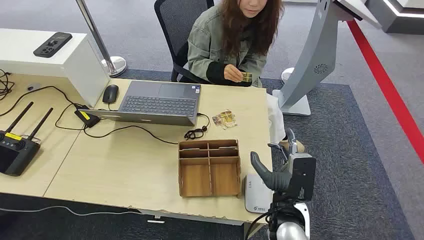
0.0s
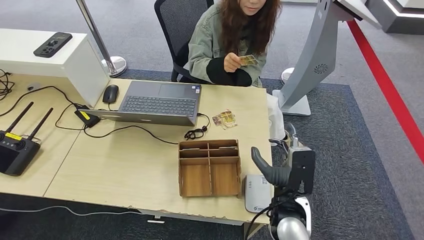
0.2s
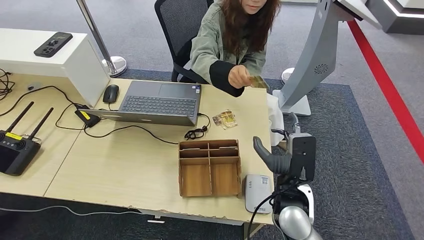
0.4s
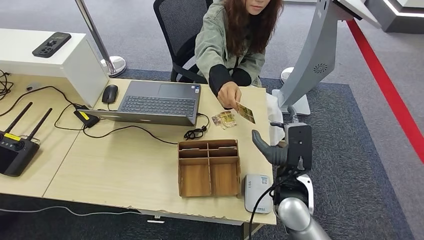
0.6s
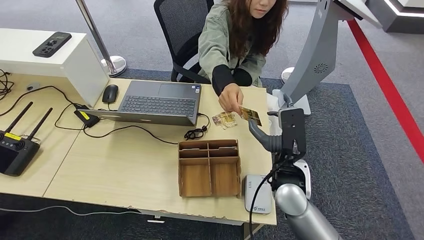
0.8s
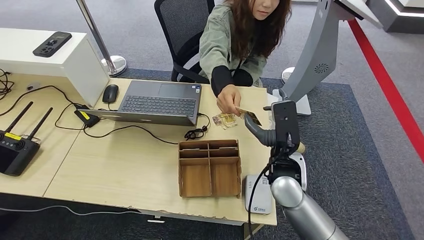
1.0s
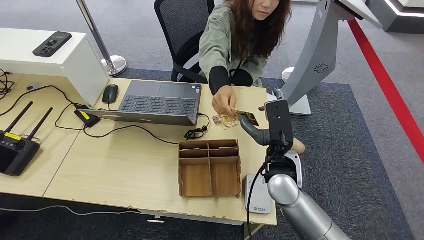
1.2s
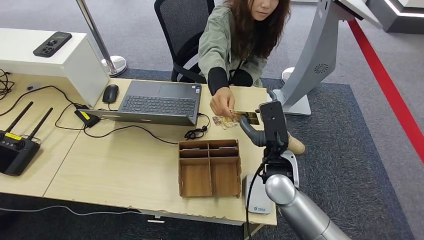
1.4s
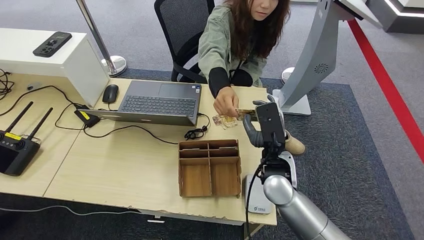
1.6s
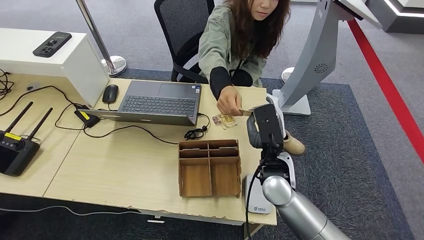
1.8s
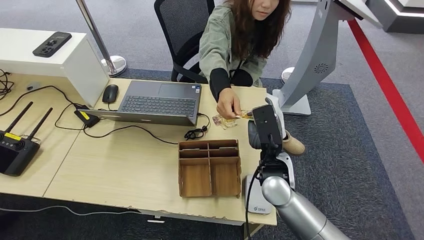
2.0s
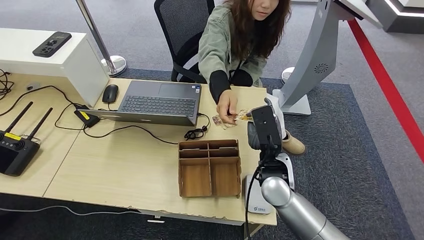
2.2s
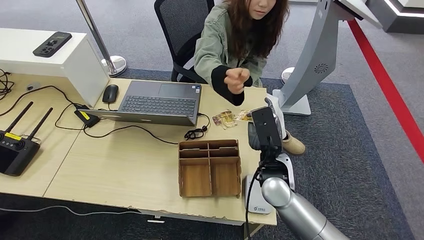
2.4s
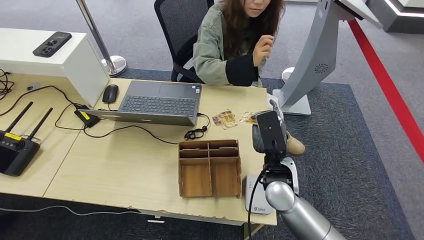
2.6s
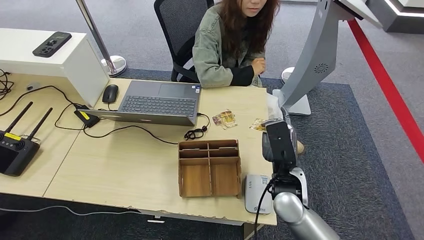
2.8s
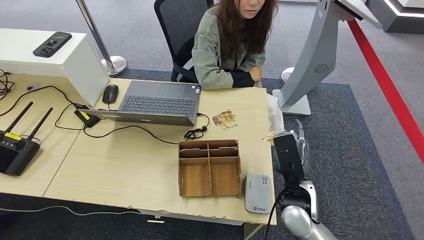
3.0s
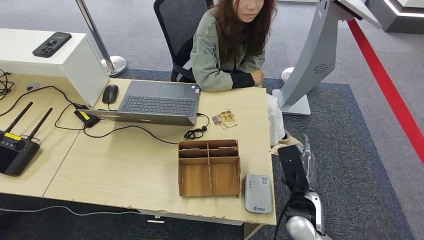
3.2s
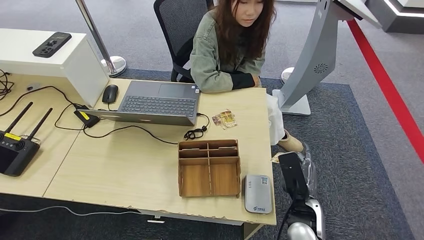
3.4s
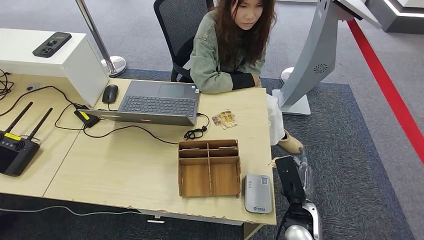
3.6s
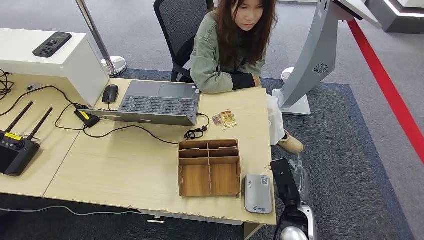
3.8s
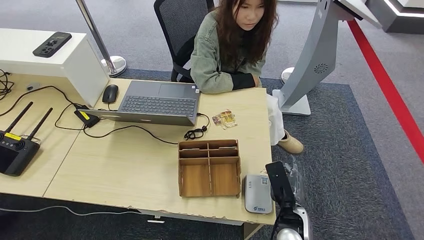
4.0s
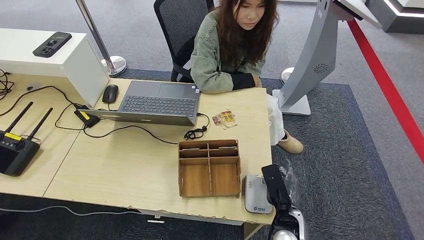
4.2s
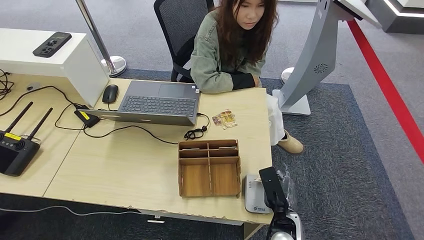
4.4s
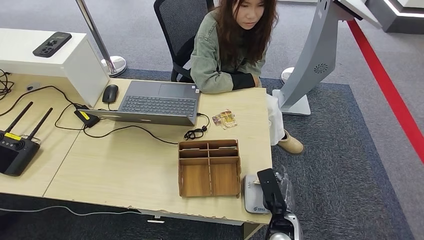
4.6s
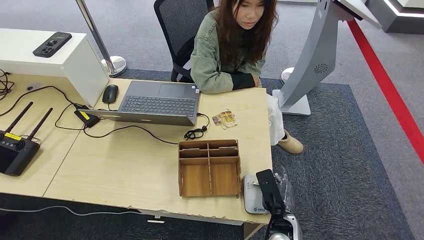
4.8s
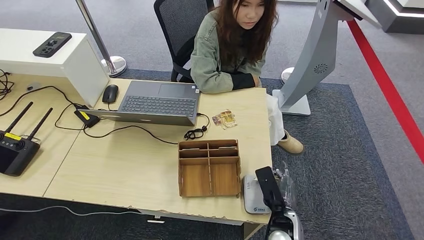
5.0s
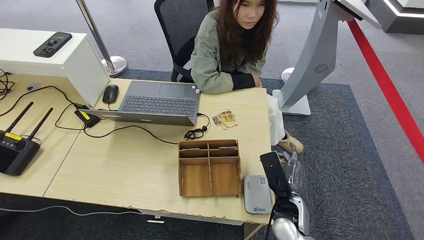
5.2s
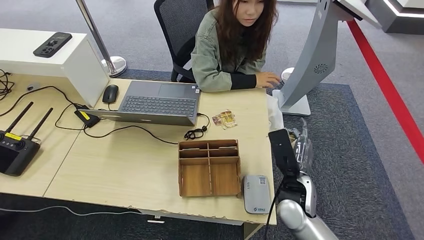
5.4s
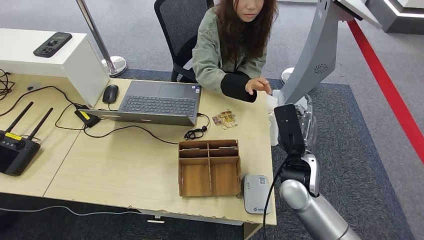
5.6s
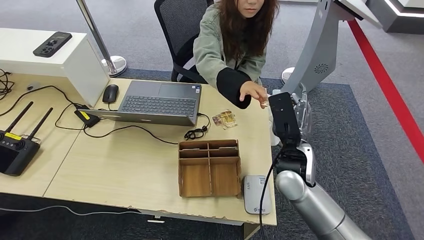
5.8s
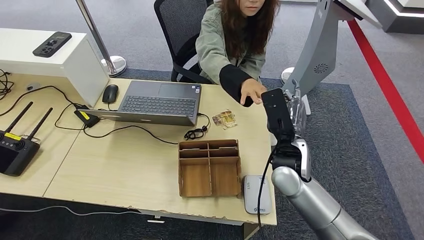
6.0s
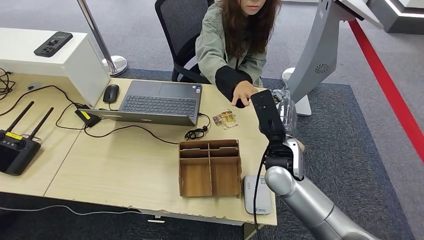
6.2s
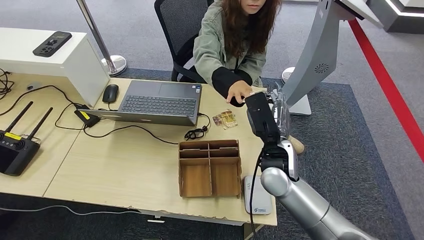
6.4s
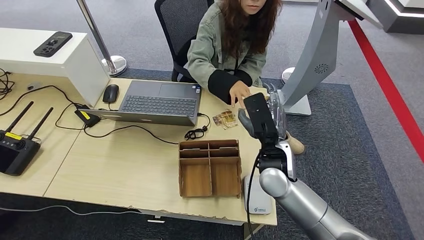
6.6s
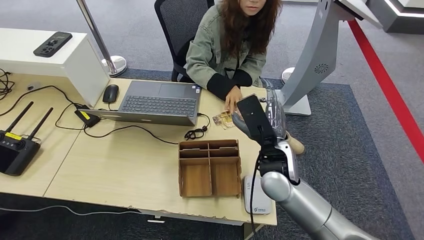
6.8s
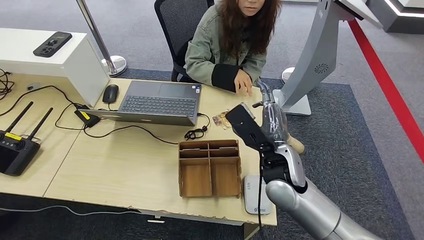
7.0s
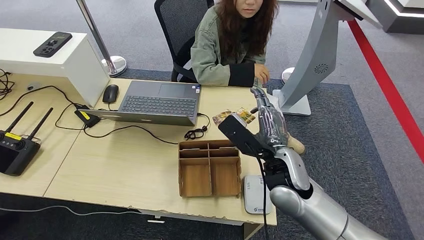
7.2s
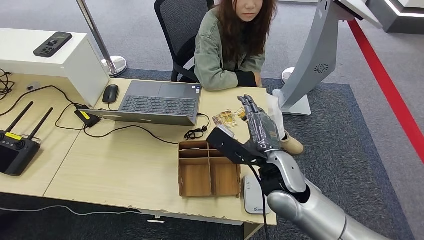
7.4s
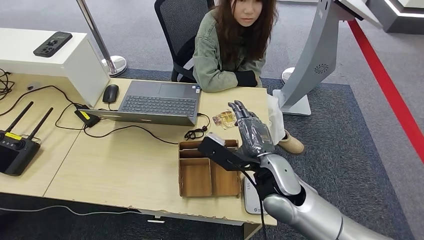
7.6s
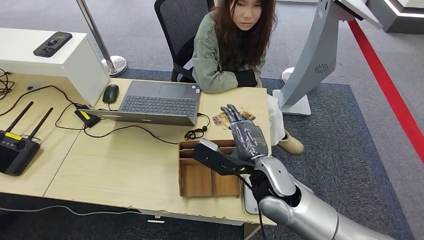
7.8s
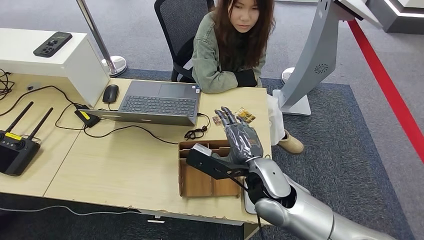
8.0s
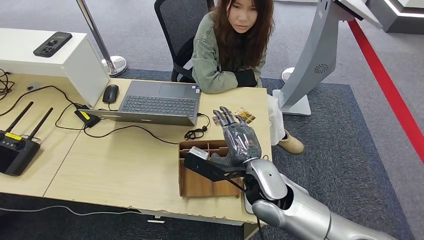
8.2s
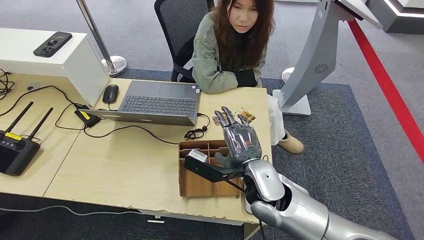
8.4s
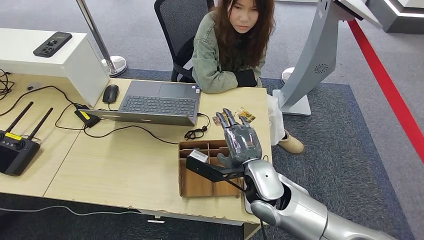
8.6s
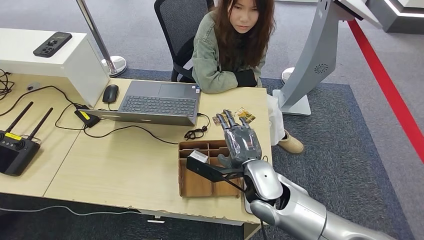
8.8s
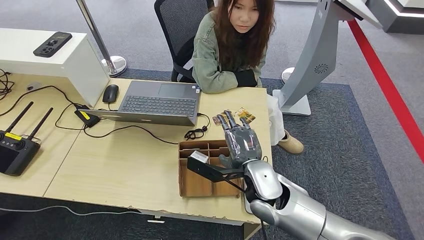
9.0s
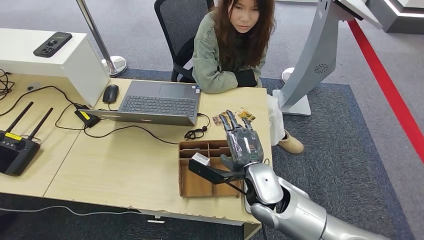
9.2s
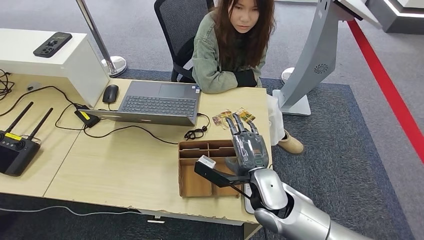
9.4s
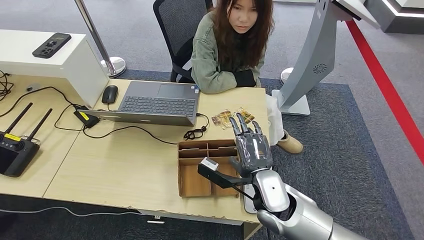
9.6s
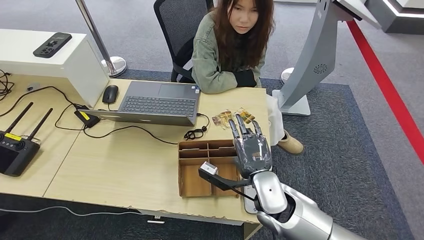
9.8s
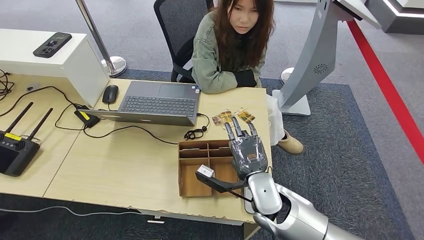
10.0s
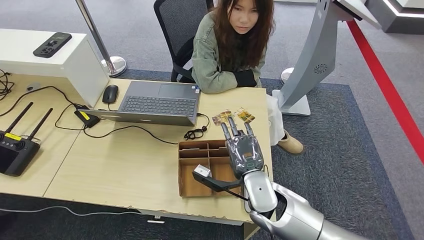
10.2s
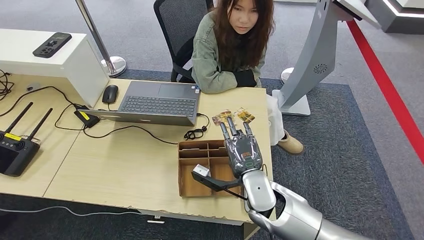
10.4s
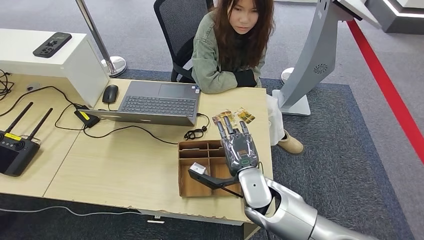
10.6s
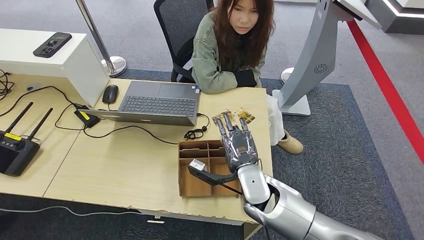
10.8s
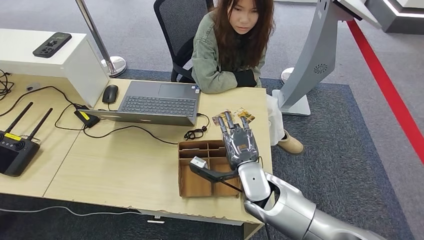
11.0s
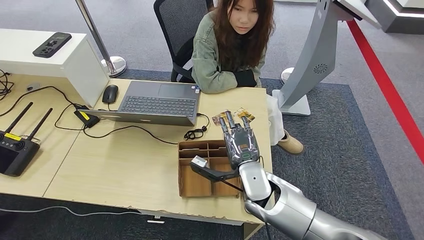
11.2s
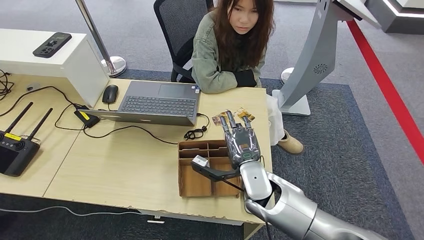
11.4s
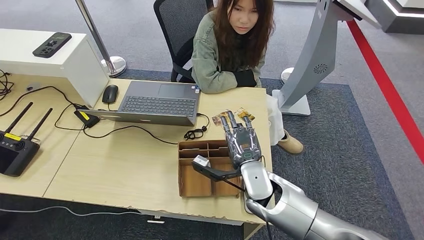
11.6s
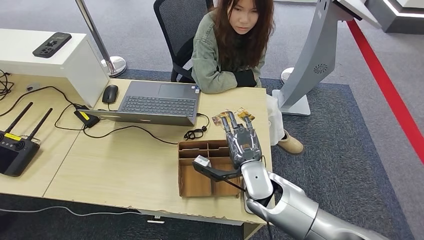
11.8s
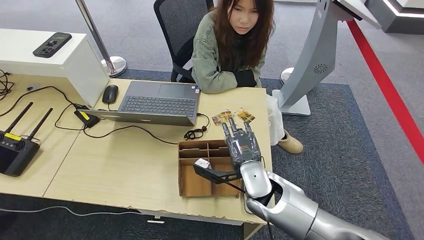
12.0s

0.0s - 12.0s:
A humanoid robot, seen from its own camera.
Step, 0.0s - 1.2s: Take the ID card from the person's hand.
Step, 1.4s - 4.4s: Place the ID card on the card reader.
Step, 4.6s - 6.8s: Hand the ID card to the person.
1.6s - 3.0s: The right hand shifts approximately 5 cm backward.
3.0s - 4.4s: The right hand is displaced downward by about 10 cm.
4.4s - 6.0s: The right hand shifts roughly 20 cm upward and forward.
6.0s - 7.6s: The right hand is displaced backward by roughly 5 cm.
7.6s - 9.0s: The hands make only small movements.
9.0s - 10.4s: There are only small adjustments of the hands.
10.4s - 12.0s: There are only small adjustments of the hands.

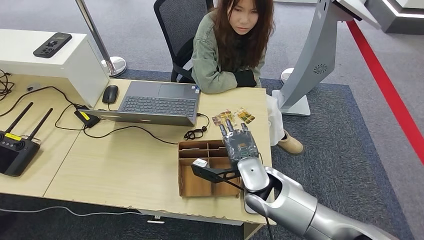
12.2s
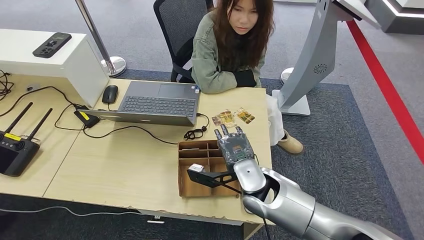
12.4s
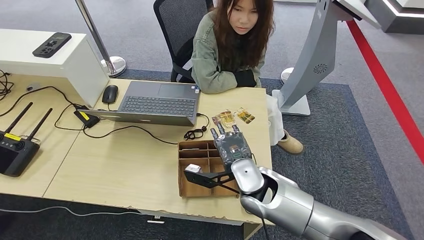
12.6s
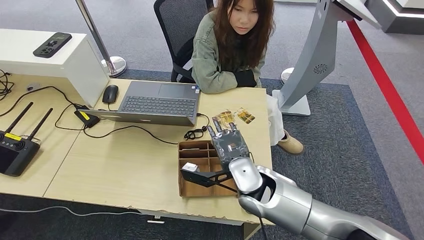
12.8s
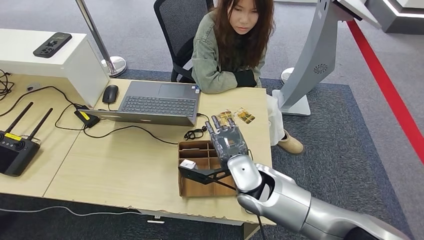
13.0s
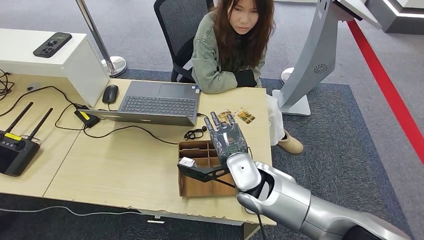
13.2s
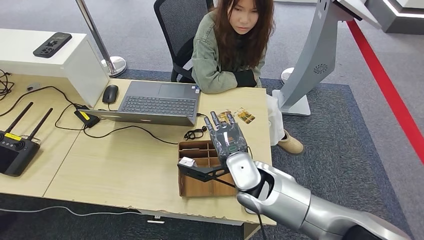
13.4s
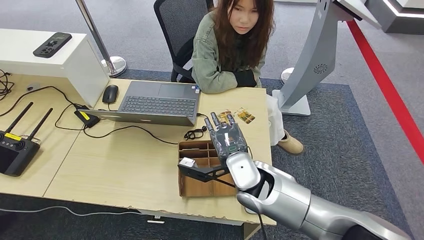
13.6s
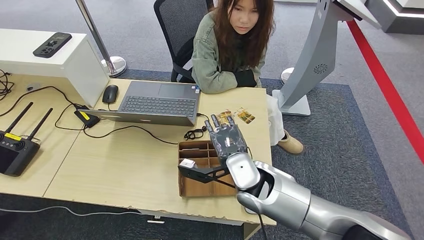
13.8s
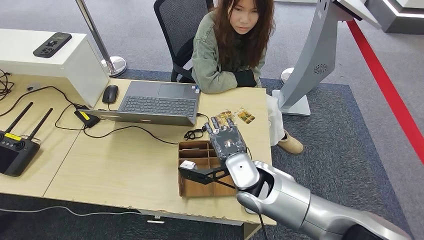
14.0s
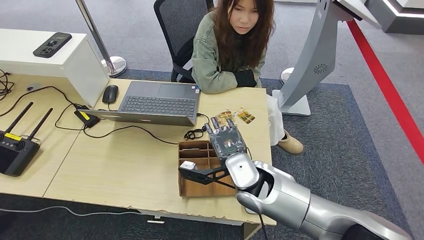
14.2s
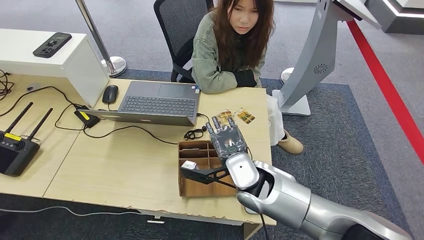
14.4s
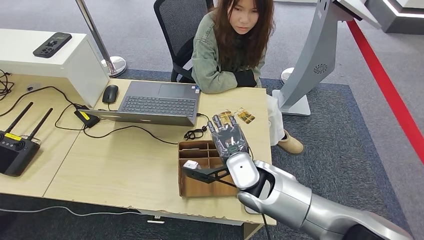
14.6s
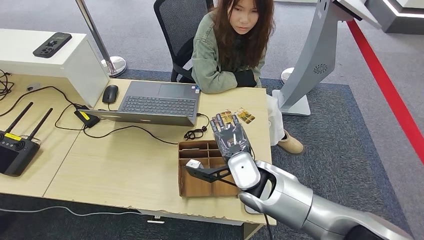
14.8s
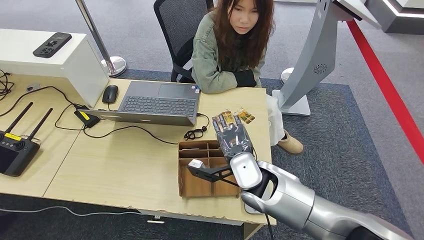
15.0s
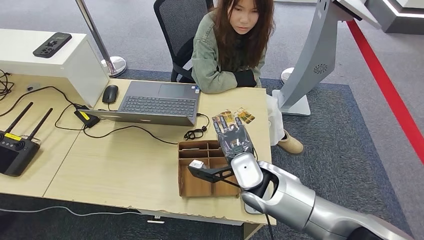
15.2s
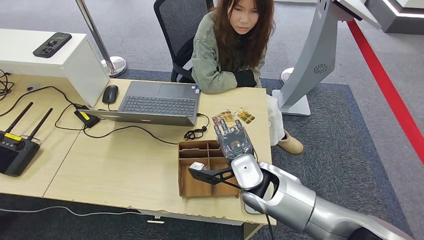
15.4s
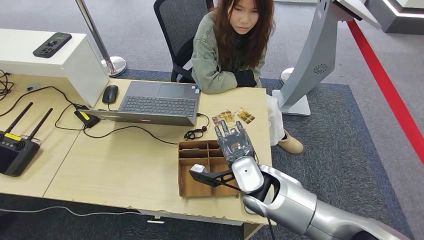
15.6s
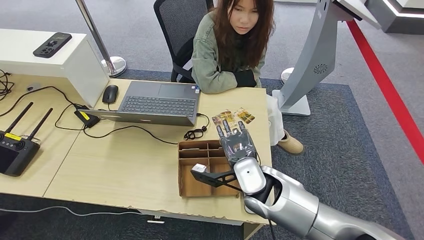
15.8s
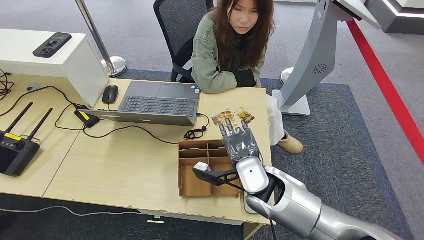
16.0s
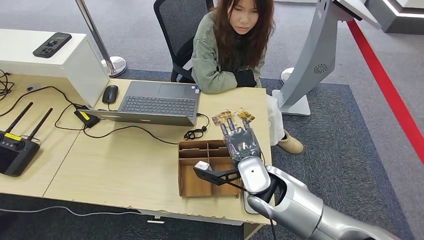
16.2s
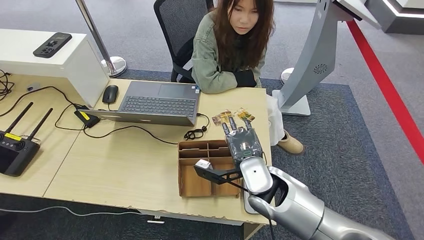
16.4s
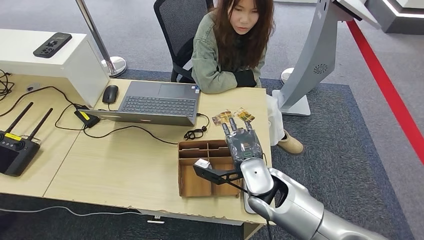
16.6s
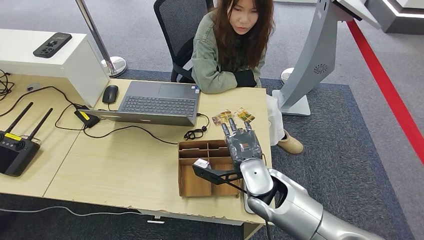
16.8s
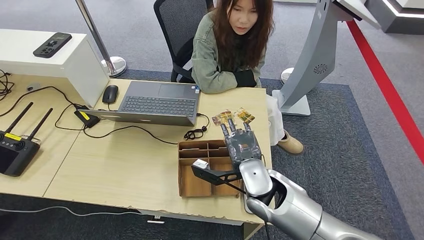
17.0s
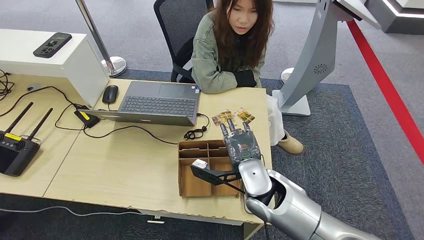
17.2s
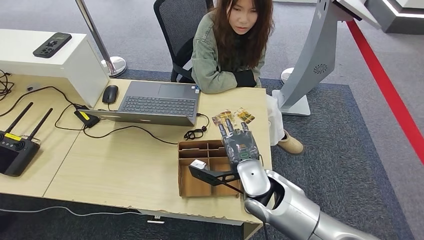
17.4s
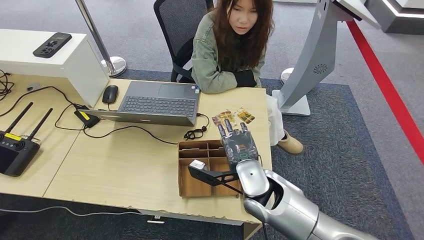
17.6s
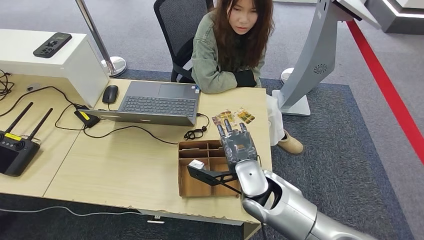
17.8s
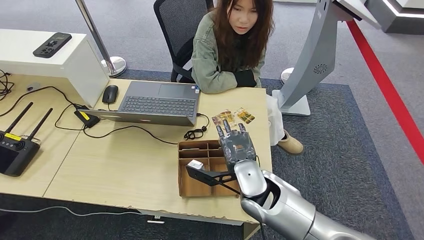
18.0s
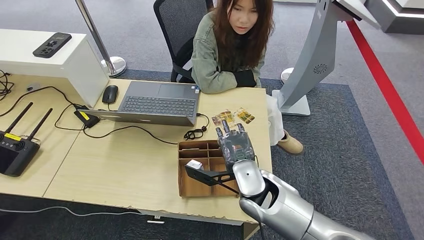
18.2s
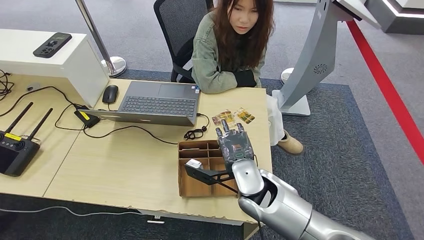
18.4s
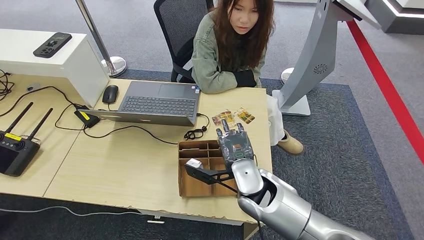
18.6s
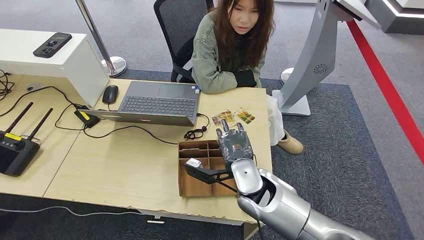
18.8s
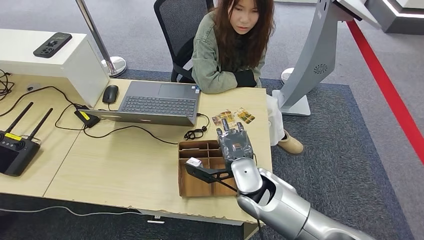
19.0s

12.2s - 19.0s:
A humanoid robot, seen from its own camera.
12.2s - 19.0s: There are only small adjustments of the hands.
